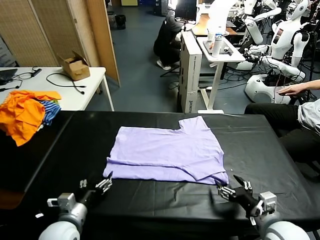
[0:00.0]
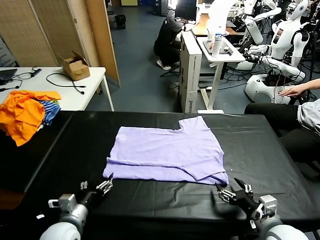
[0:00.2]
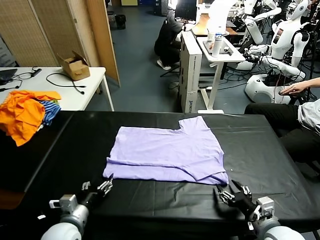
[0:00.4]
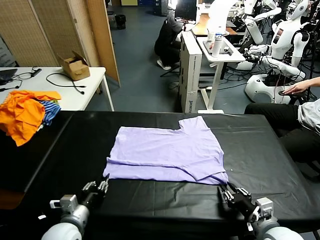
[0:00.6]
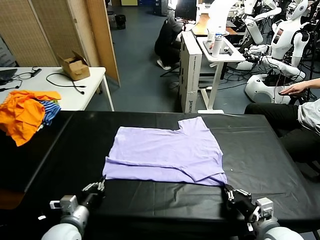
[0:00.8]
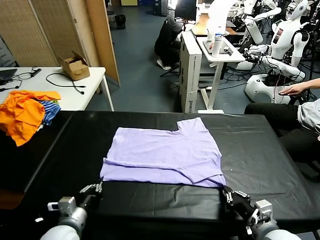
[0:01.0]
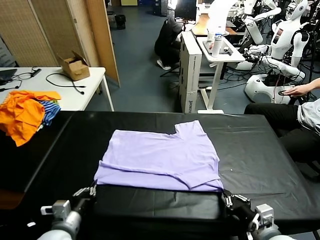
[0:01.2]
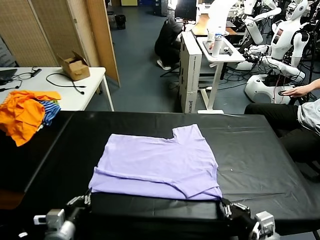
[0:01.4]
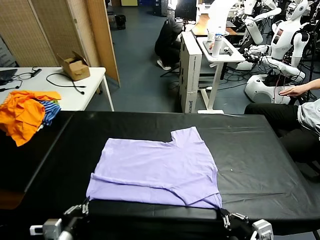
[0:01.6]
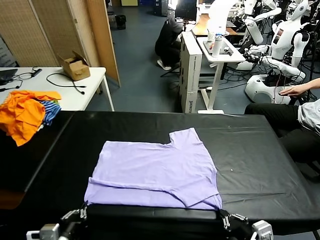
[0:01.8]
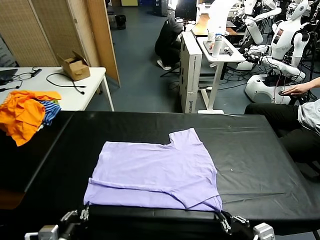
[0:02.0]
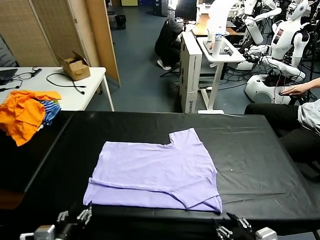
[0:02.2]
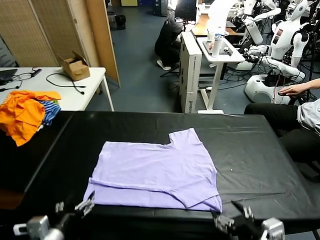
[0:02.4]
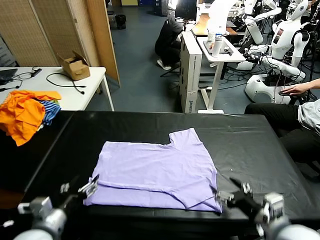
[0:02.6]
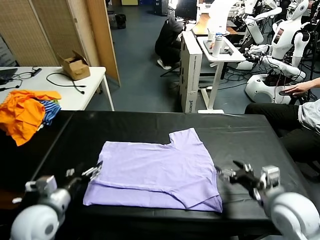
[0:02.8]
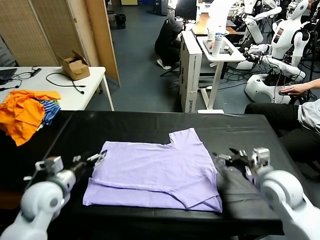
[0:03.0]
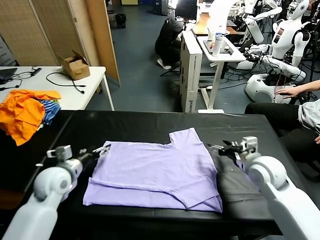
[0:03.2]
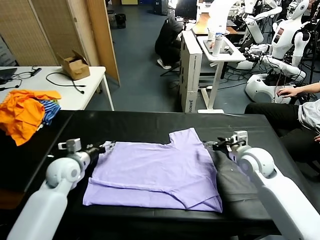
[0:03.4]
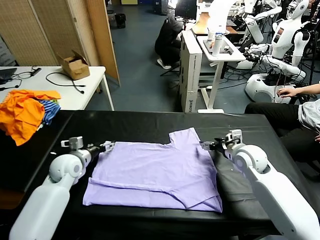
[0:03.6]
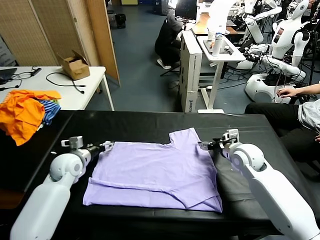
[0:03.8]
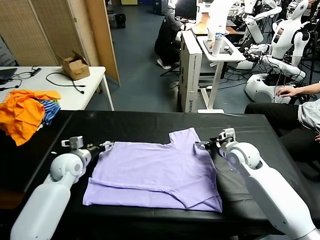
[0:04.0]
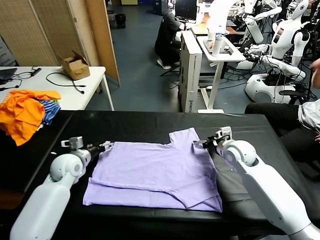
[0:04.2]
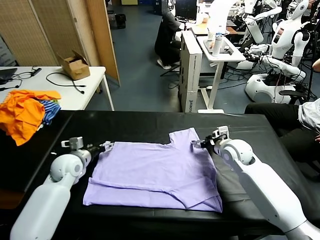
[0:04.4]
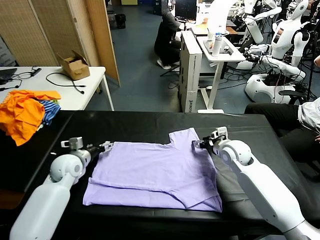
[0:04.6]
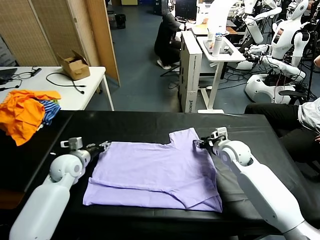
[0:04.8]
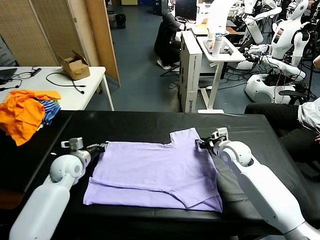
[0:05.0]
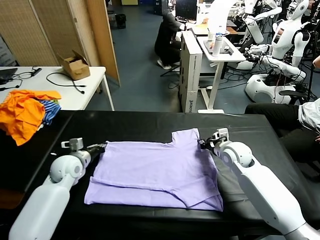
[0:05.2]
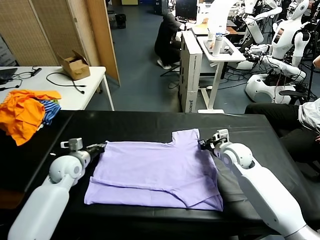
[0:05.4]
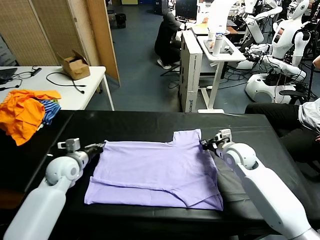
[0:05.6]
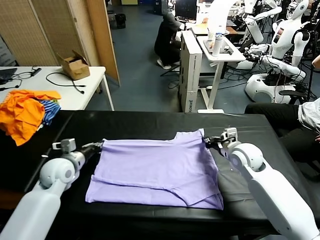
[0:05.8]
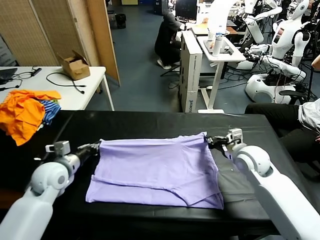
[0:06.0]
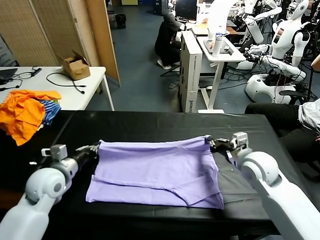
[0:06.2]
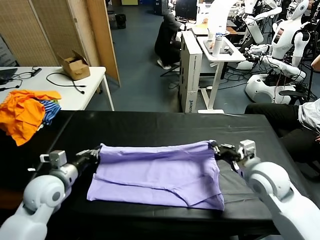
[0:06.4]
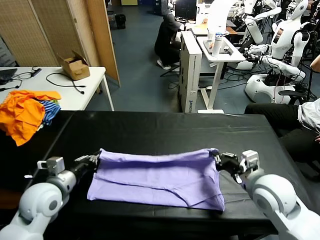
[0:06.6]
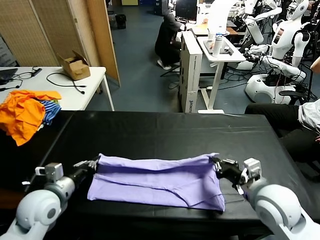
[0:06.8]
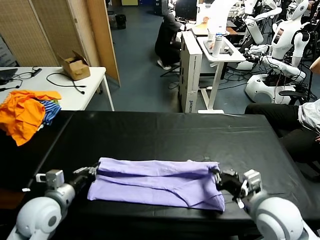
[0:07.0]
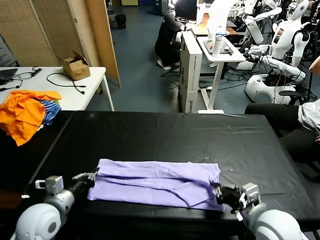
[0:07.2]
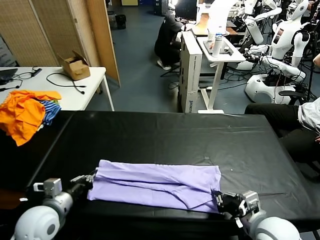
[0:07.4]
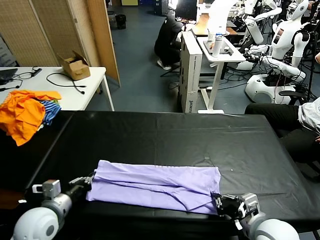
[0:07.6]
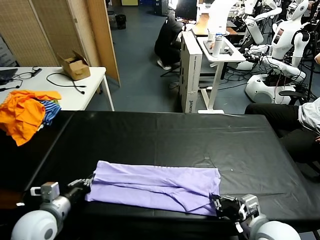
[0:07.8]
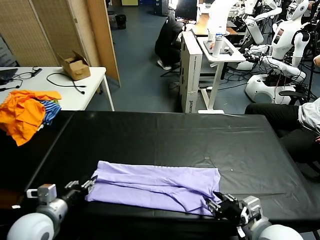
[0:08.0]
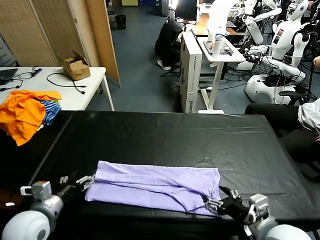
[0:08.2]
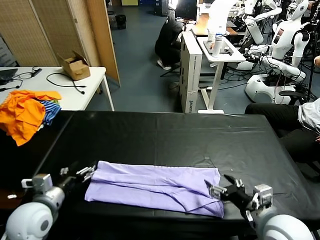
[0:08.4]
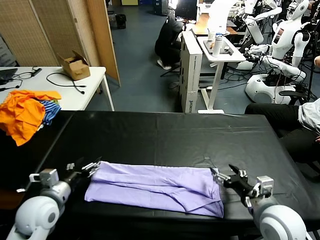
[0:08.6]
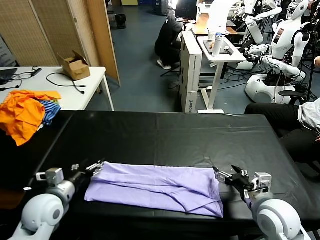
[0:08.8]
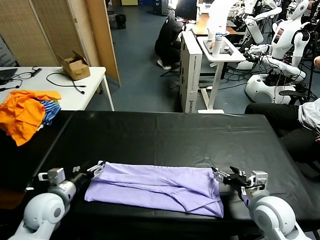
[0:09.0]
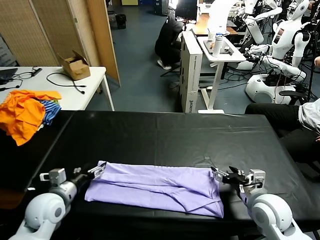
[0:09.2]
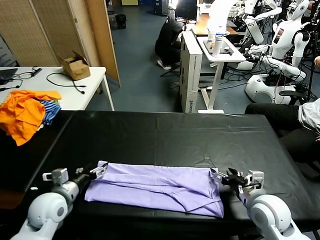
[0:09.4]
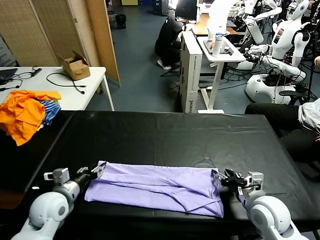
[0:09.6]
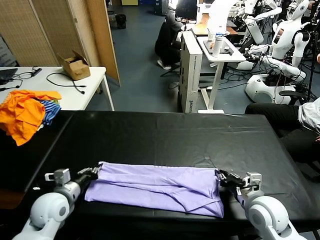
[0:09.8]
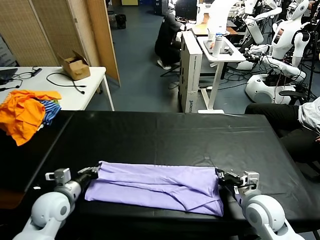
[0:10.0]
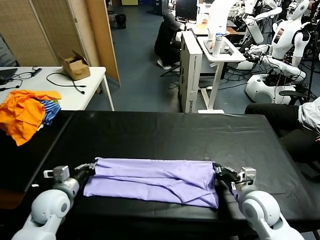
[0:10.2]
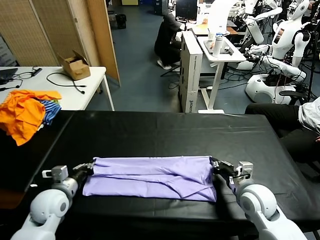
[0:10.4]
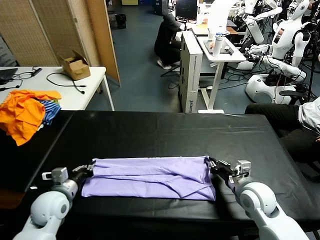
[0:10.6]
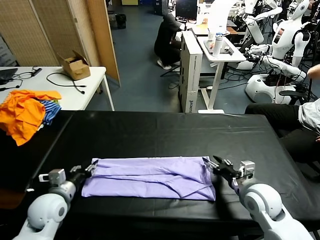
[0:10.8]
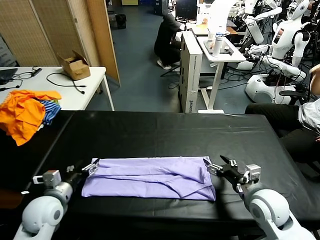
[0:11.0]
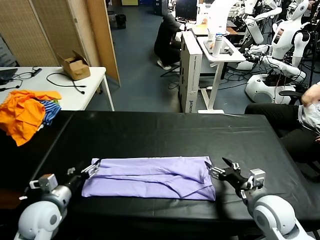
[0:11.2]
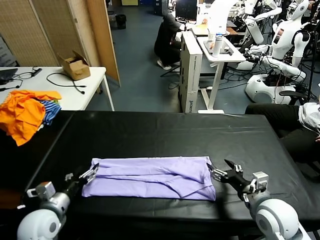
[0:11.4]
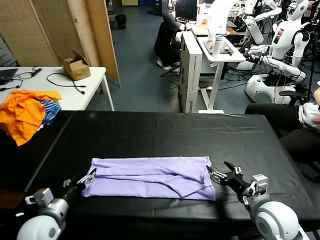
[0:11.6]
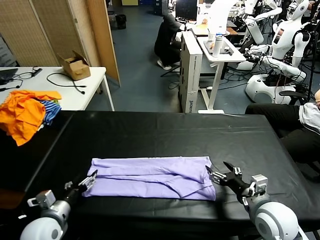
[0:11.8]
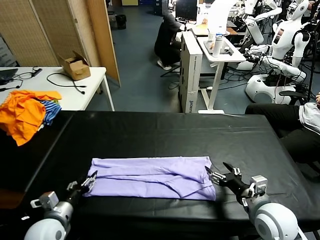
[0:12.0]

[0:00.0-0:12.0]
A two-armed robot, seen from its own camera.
Task of the whole recording: fold and organize the clothes.
Step, 0:00.0 to 0:02.2: Drag the clothes downward with both gripper.
Step, 0:02.4 to 0:05.2: use both grippers simultaneously to clamp the upper edge of the clothing fabric.
Step, 0:05.4 to 0:10.8: use both grippers to drag the upper edge of the fabric backward and fold it over the lower edge.
0:00.0 to 0:01.6: Both grippers move backward, roughly 10 cm. The right gripper closes up. The left gripper closes its fingers.
0:01.6 to 0:03.0: Both grippers travel together forward, about 25 cm. The left gripper opens up. The right gripper opens.
0:03.0 to 0:04.4: Both grippers move forward, approximately 5 cm. The right gripper closes.
0:04.4 to 0:06.0: Both grippers travel together backward and upward, roughly 15 cm. The left gripper closes its fingers. The right gripper closes its fingers.
0:06.0 to 0:07.6: The two grippers go approximately 15 cm backward. The right gripper opens its fingers.
0:07.6 to 0:09.0: The left gripper is displaced forward by about 5 cm, and opens up, while the right gripper shifts approximately 10 cm forward, and opens.
0:09.0 to 0:10.4: The left gripper closes its fingers, while the right gripper closes its fingers.
0:10.4 to 0:12.0: The two grippers go roughly 5 cm backward. The right gripper opens its fingers, while the left gripper opens, then closes once more.

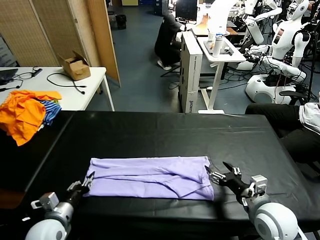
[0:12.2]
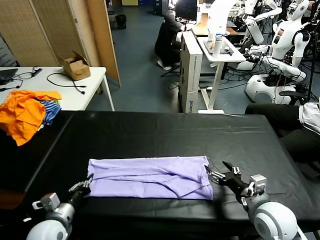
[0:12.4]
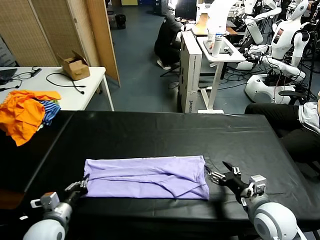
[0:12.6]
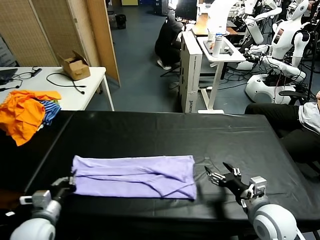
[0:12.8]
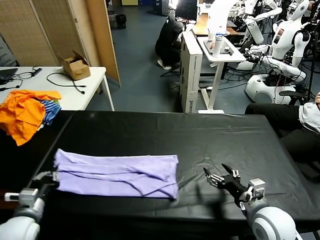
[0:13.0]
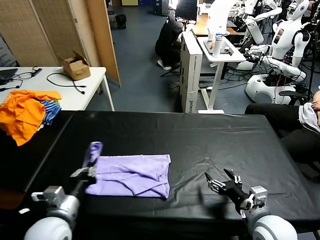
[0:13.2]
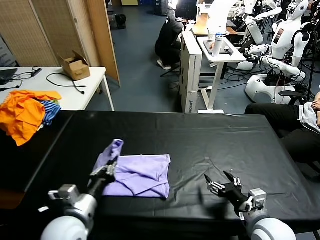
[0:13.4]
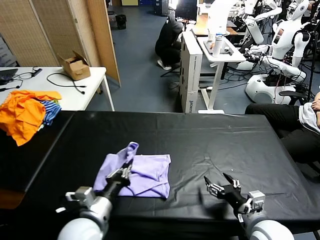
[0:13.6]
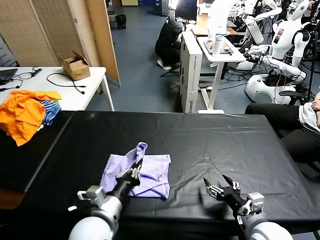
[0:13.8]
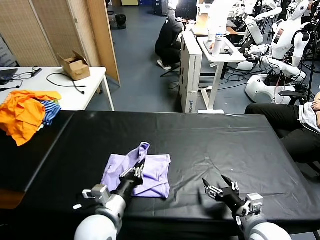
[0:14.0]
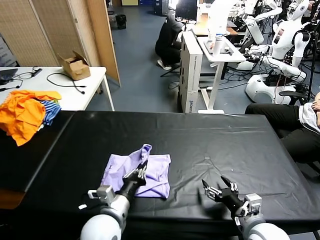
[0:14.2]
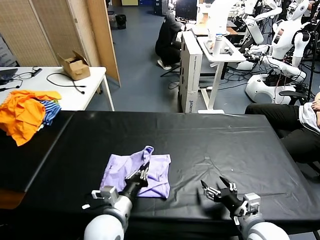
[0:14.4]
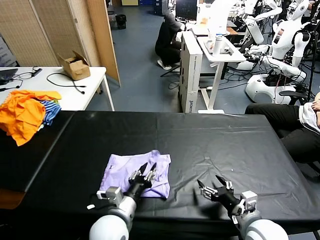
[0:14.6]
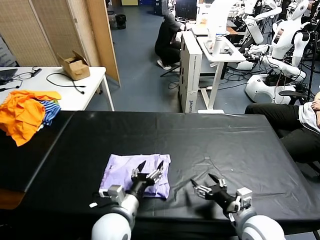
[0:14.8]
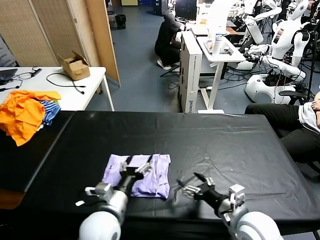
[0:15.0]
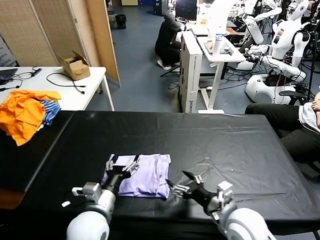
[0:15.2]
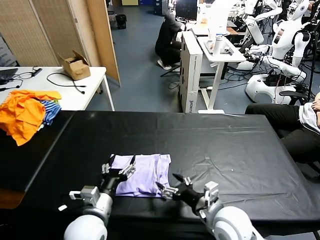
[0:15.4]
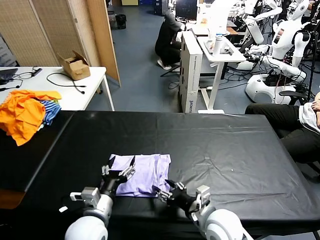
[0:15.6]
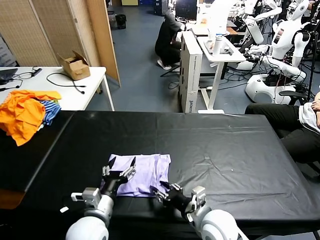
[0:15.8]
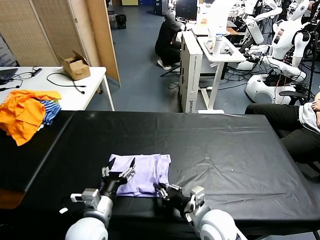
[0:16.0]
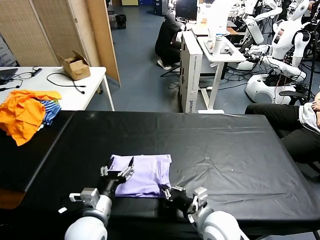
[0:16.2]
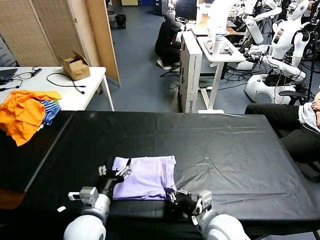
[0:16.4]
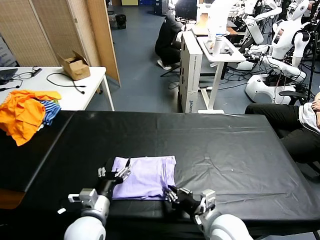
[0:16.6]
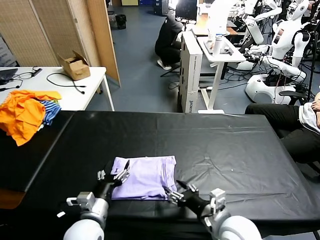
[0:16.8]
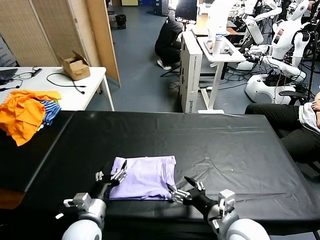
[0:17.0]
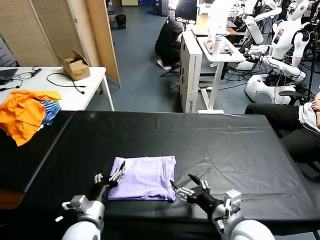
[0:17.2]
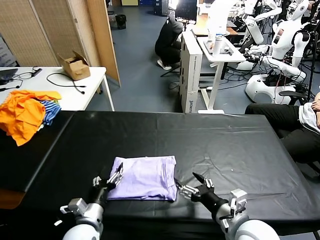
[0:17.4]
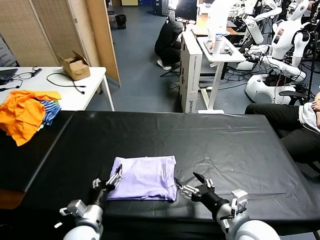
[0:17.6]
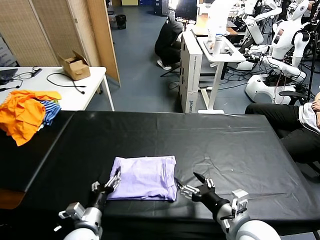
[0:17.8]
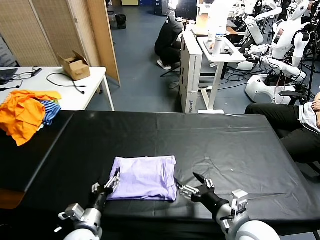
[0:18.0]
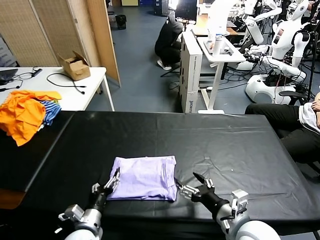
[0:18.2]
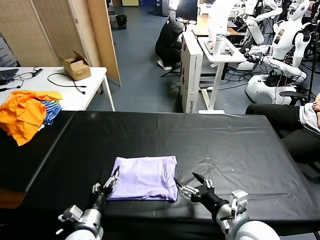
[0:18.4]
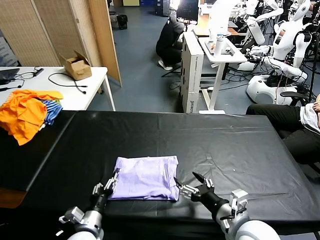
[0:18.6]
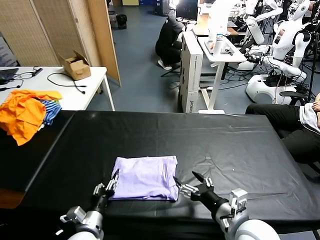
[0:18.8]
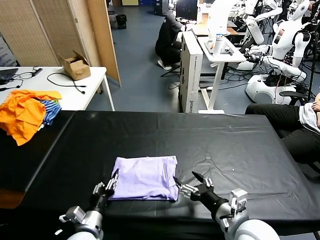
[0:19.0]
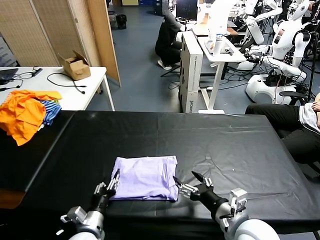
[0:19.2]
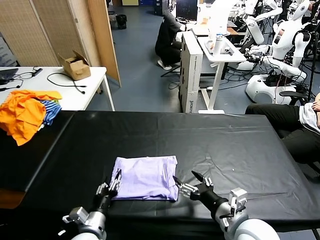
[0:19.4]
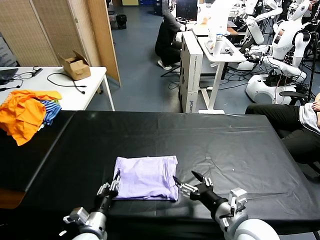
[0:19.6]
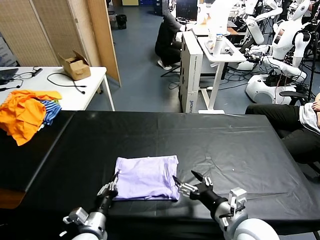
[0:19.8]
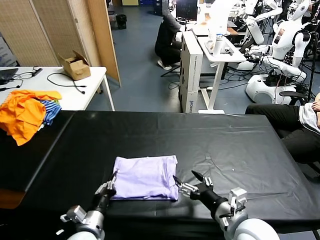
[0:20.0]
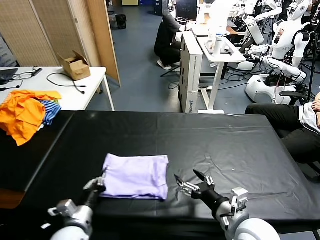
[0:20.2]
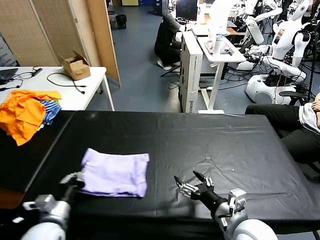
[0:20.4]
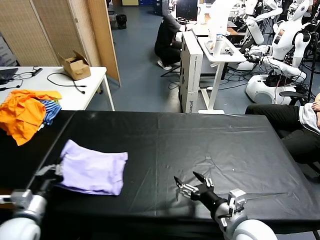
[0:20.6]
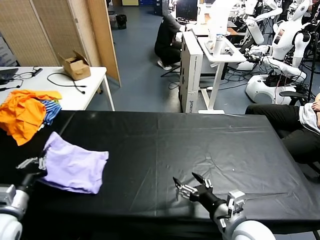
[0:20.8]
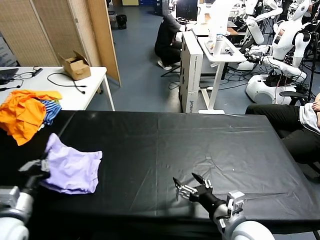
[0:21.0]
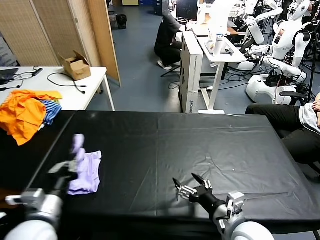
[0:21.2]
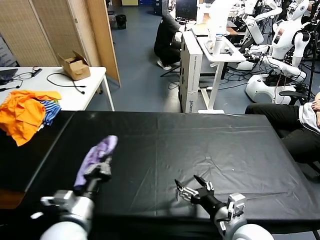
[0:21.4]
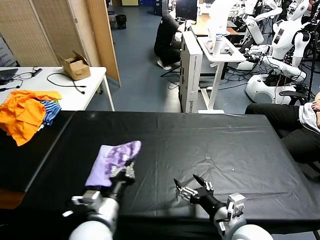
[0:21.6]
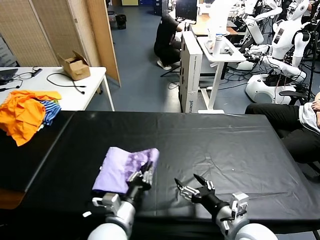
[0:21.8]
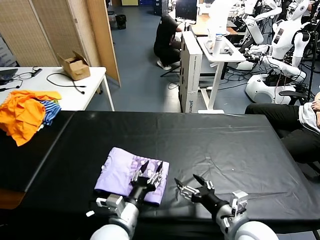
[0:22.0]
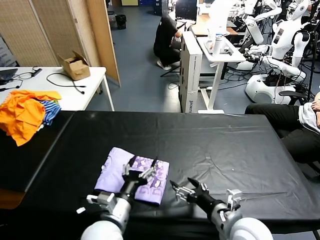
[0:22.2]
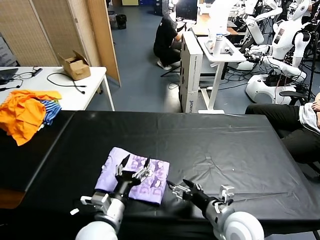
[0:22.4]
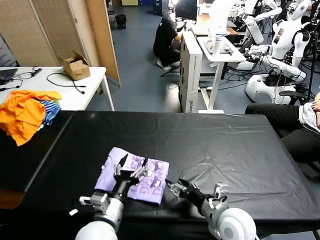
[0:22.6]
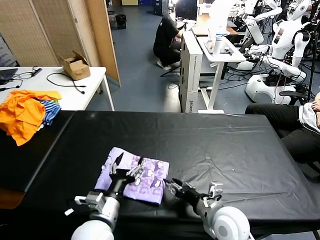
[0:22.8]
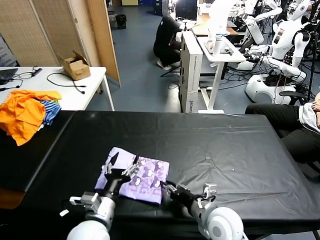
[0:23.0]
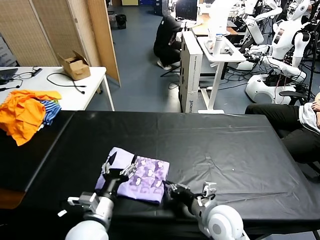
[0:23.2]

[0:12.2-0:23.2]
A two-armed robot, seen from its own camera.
Task of the whole recording: fold and organize the clothes.
Step, 0:12.6 to 0:16.6: use the left gripper to drag the left edge of the fabric to the left and folds it over the right edge.
Step, 0:17.0 to 0:22.2: Flip the folded clothes over with left gripper.
0:12.2 to 0:13.8: The left gripper shifts about 15 cm to the right and upward, while the right gripper changes place by roughly 5 cm.
0:13.8 to 0:15.4: The right gripper moves to the left, some 10 cm. Meanwhile the left gripper opens up.
0:15.4 to 0:17.0: The left gripper ends up roughly 5 cm from where it was. The right gripper closes, then reopens.
0:17.0 to 0:18.4: The left gripper heads downward, covering roughly 5 cm.
0:18.4 to 0:20.0: The left gripper closes up.
0:20.0 to 0:21.6: The left gripper heads upward, covering approximately 10 cm, and moves about 15 cm to the left and comes back.
0:21.6 to 0:23.2: The left gripper opens up, while the right gripper heads forward and downward, covering some 10 cm, and closes its fingers.
